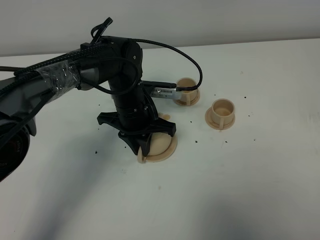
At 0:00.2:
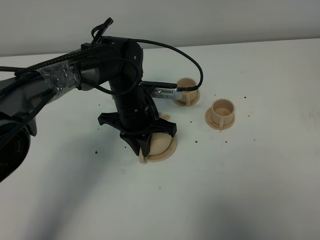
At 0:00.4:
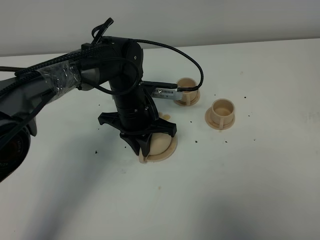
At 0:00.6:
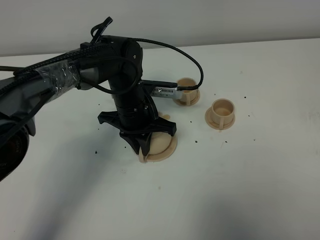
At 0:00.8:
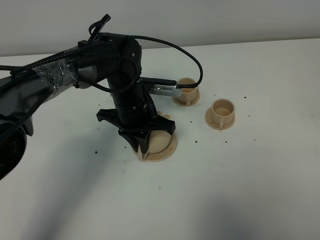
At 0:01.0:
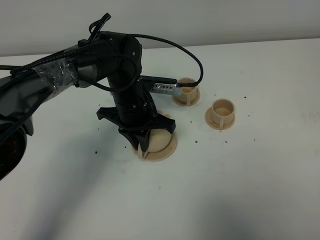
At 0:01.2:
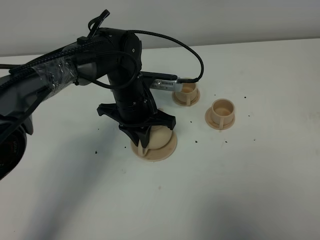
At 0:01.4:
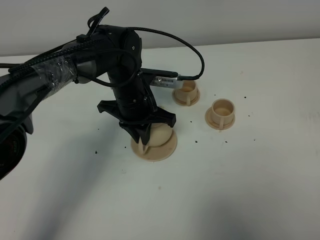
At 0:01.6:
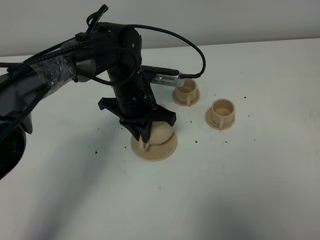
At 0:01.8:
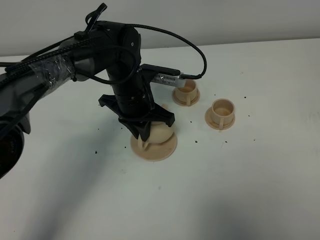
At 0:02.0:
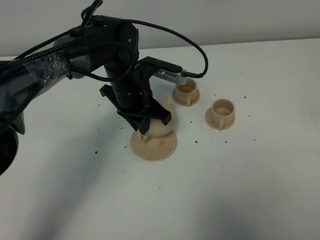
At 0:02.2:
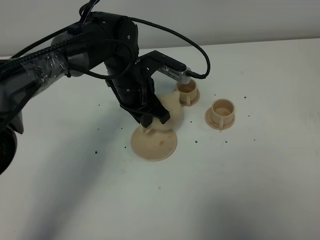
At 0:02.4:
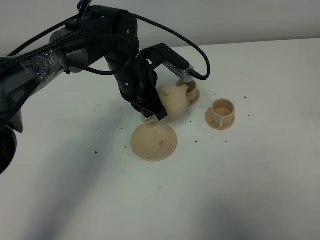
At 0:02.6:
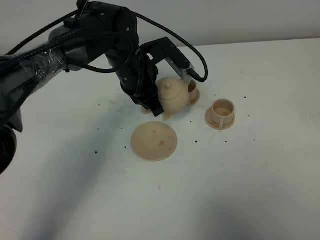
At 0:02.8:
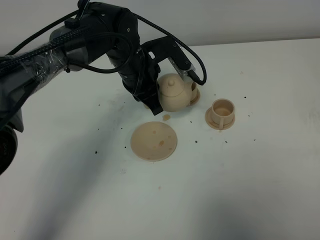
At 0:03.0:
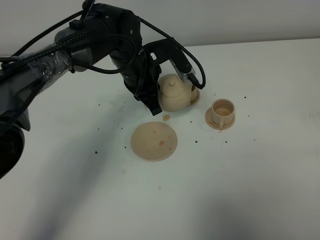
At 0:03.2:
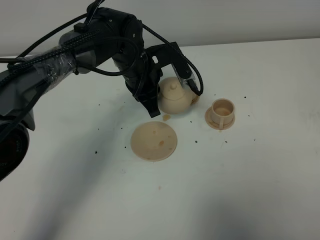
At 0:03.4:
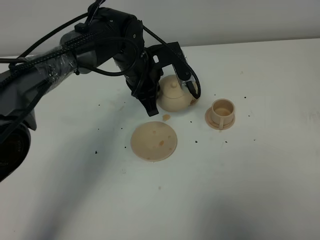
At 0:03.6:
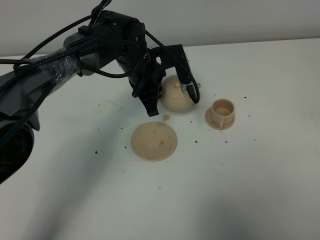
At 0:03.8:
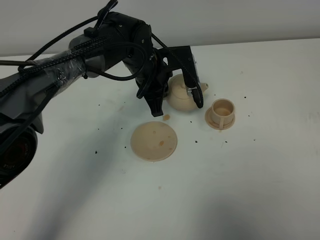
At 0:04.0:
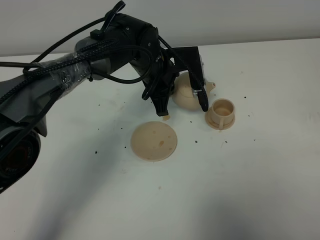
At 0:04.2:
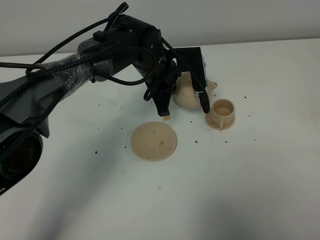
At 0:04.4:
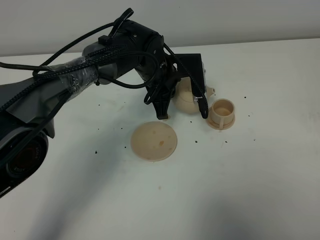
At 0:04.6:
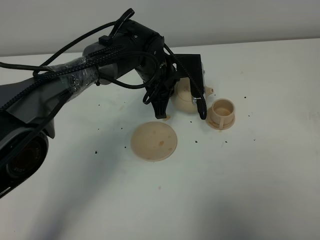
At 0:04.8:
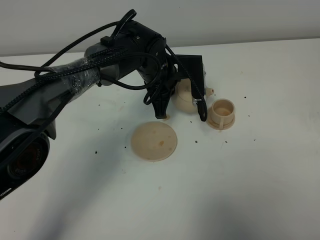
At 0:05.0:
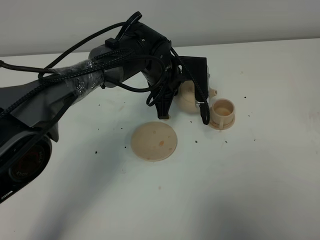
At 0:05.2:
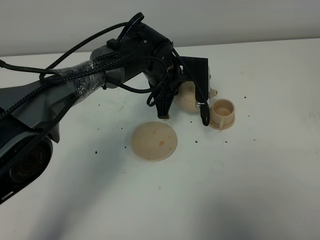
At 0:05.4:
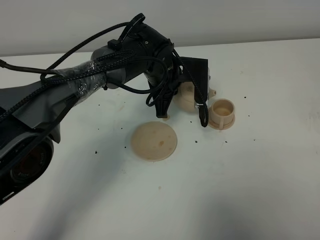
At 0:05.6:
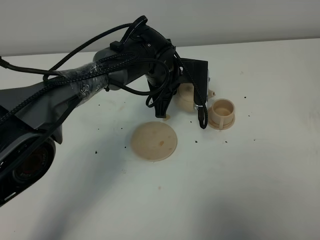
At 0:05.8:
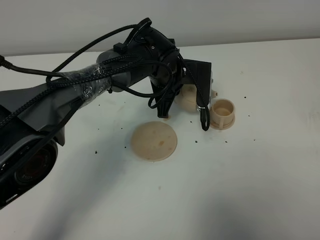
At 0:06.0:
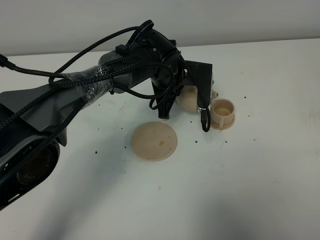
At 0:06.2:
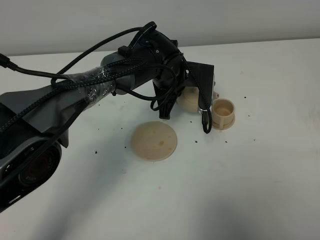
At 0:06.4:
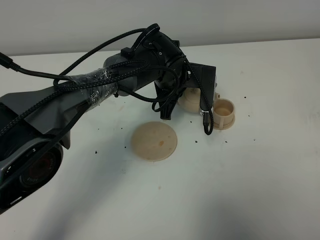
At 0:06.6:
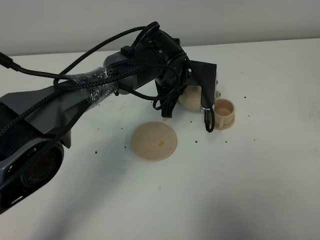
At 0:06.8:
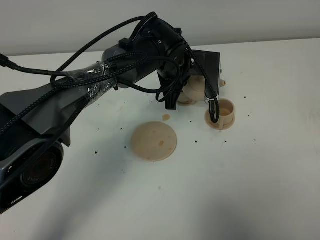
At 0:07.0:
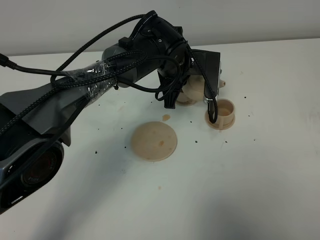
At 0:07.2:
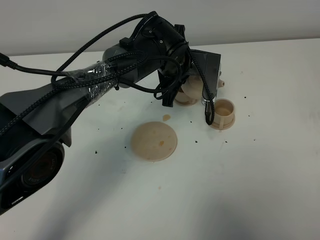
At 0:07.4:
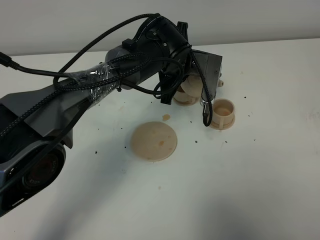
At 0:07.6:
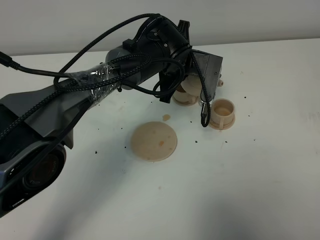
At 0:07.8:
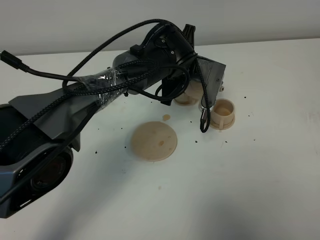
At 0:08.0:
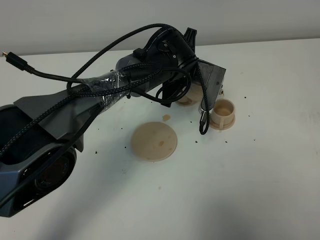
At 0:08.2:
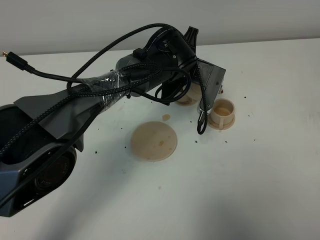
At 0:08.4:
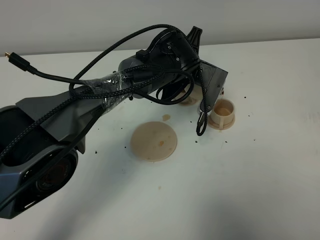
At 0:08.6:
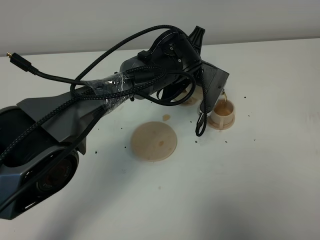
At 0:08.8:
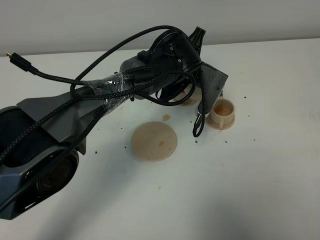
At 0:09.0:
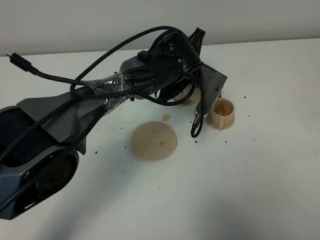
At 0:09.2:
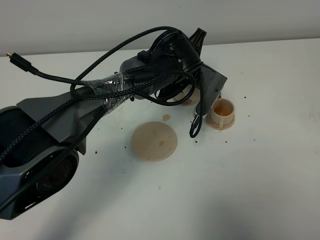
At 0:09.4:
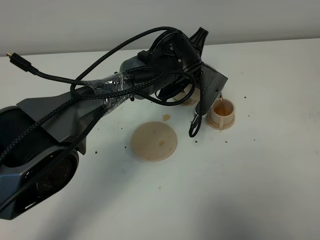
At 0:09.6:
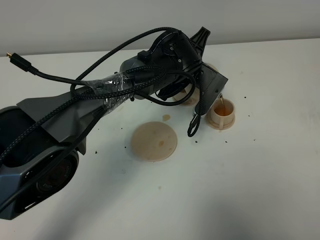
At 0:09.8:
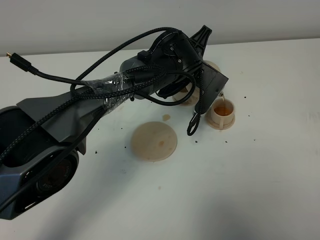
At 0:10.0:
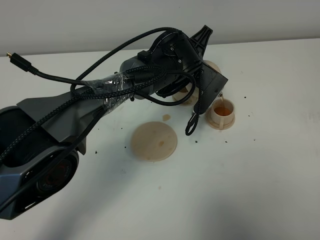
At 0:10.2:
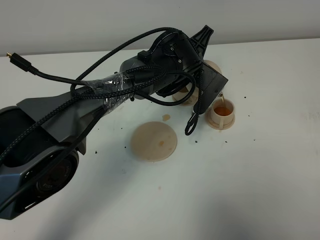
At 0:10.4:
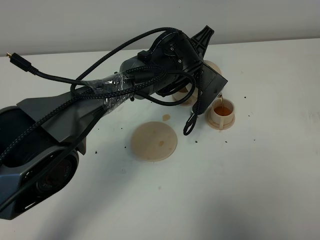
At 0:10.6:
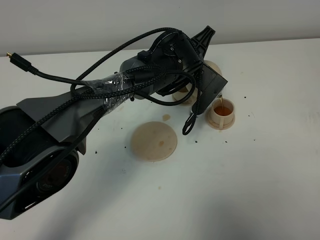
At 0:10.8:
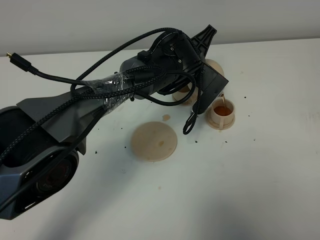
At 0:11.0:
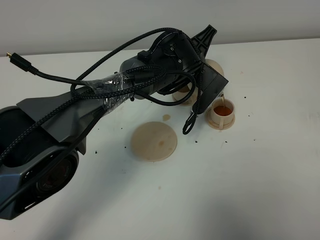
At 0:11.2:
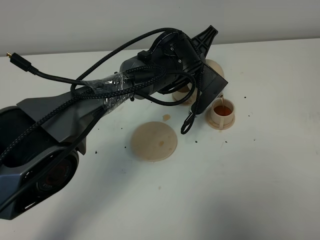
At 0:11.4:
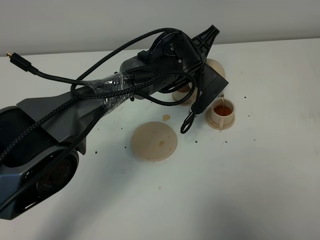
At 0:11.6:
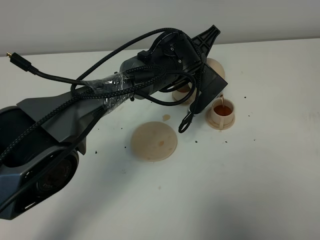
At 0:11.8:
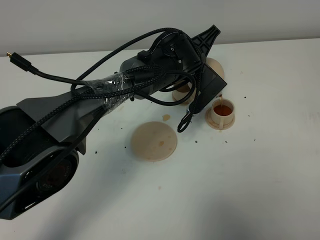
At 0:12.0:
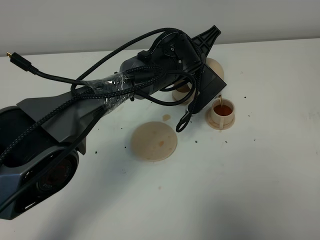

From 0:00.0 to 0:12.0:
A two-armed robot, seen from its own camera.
Task of the whole recording: grasp the brown teapot and pour the tea into the two brown teacups one by one, put the brown teapot back in its original place.
From 0:00.0 to 0:01.6: The grippers make only small movements.
From 0:04.4 to 0:06.0: The grippers make only small movements.
From 0:06.0 to 0:07.6: There are only small adjustments of the grippers.
From 0:07.6 to 0:09.0: There are only small adjustments of the grippers.
From 0:09.0 to 0:12.0: The grippers make only small movements.

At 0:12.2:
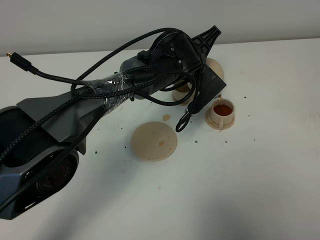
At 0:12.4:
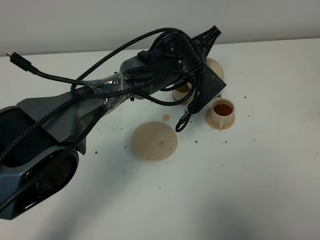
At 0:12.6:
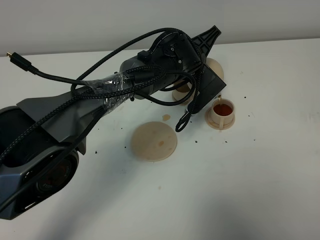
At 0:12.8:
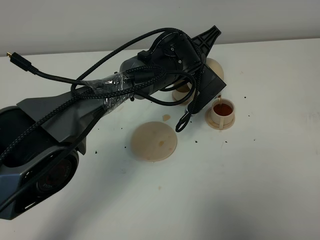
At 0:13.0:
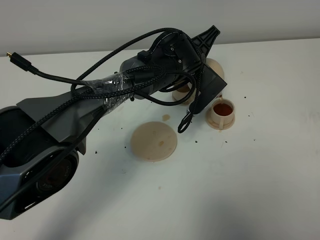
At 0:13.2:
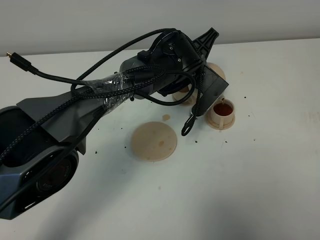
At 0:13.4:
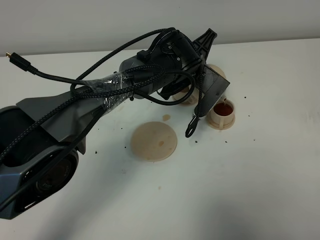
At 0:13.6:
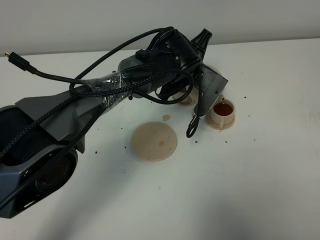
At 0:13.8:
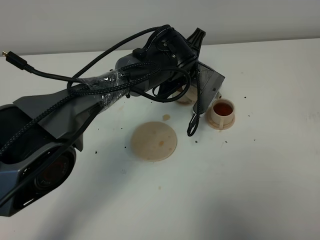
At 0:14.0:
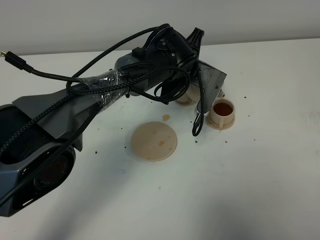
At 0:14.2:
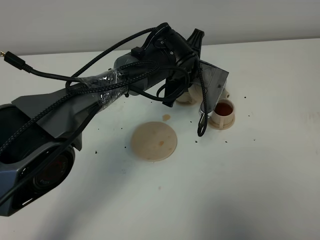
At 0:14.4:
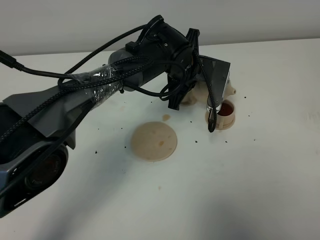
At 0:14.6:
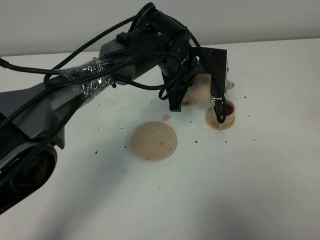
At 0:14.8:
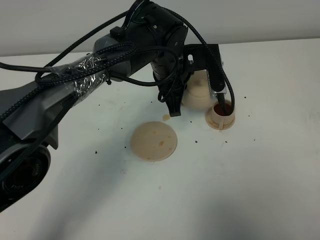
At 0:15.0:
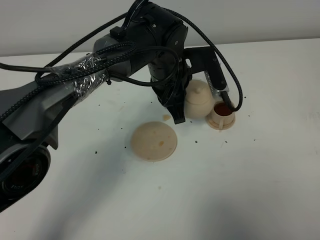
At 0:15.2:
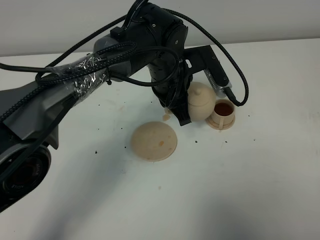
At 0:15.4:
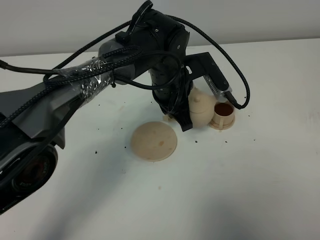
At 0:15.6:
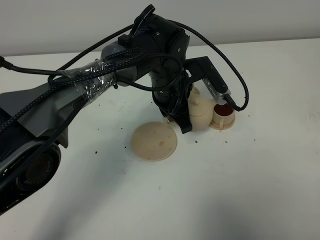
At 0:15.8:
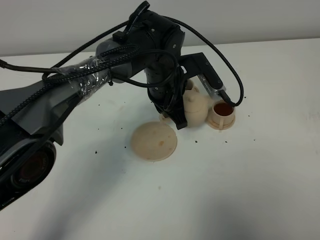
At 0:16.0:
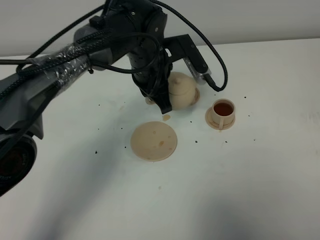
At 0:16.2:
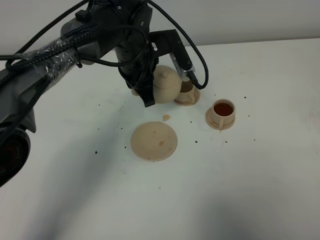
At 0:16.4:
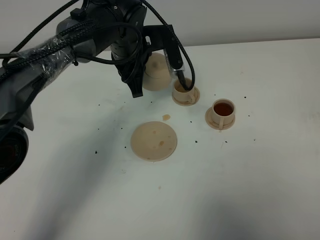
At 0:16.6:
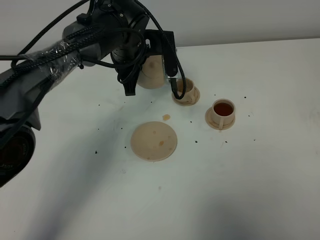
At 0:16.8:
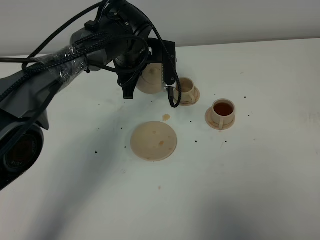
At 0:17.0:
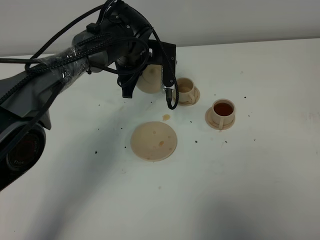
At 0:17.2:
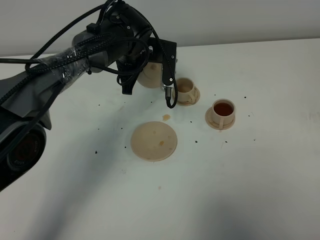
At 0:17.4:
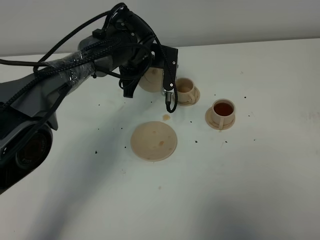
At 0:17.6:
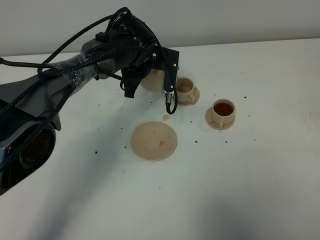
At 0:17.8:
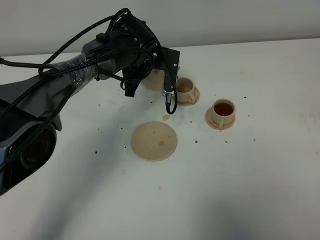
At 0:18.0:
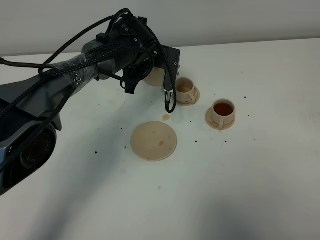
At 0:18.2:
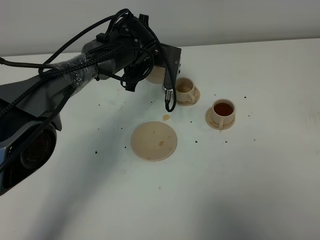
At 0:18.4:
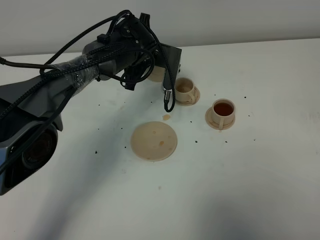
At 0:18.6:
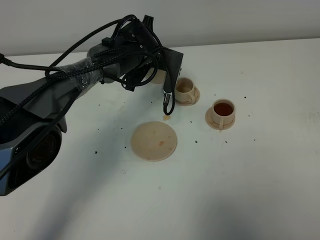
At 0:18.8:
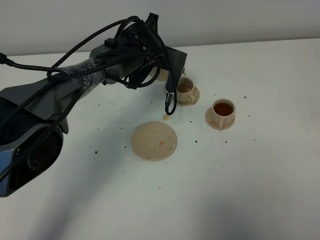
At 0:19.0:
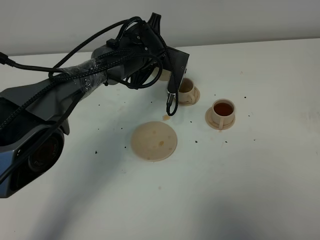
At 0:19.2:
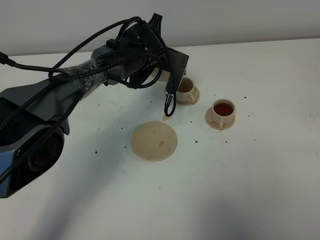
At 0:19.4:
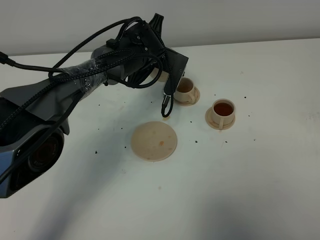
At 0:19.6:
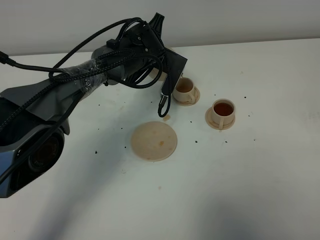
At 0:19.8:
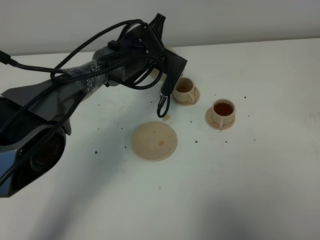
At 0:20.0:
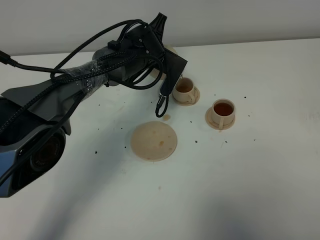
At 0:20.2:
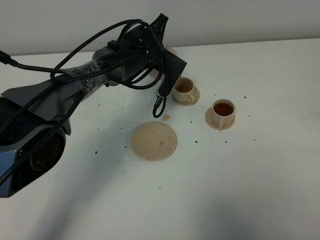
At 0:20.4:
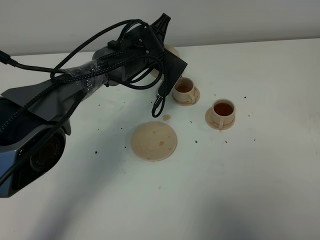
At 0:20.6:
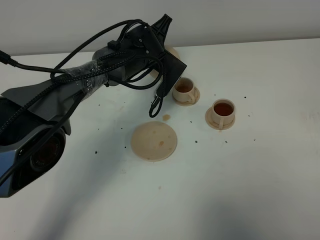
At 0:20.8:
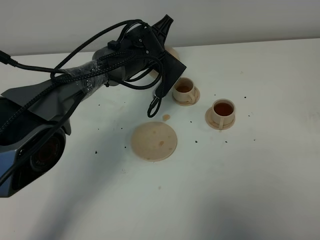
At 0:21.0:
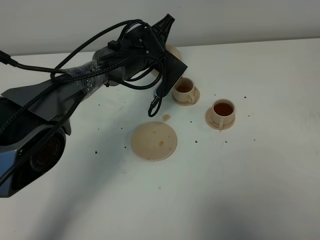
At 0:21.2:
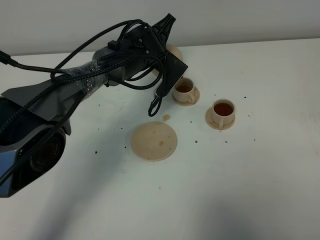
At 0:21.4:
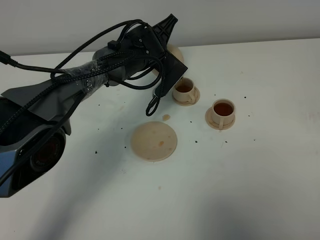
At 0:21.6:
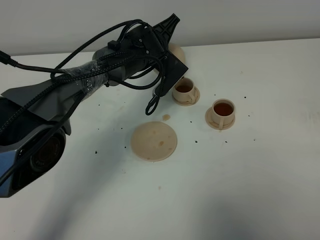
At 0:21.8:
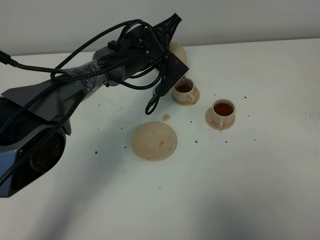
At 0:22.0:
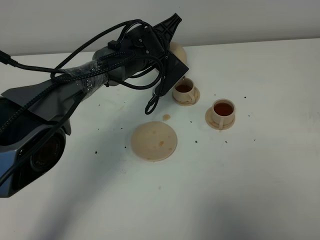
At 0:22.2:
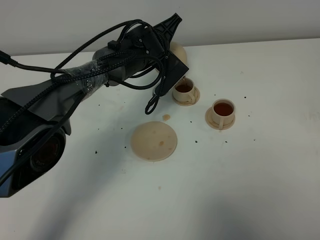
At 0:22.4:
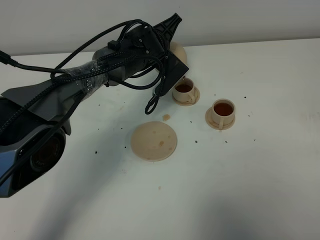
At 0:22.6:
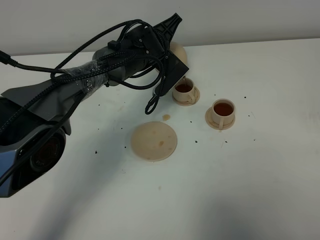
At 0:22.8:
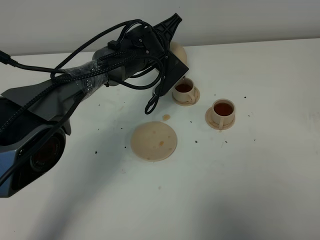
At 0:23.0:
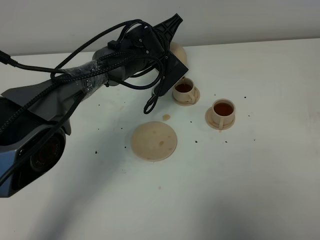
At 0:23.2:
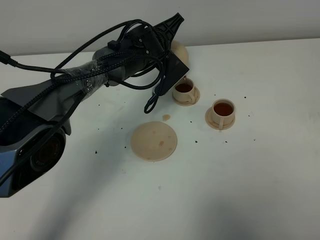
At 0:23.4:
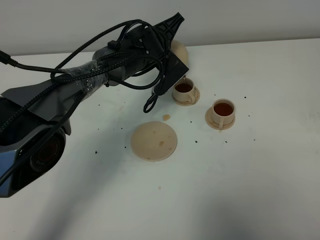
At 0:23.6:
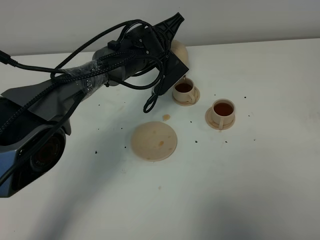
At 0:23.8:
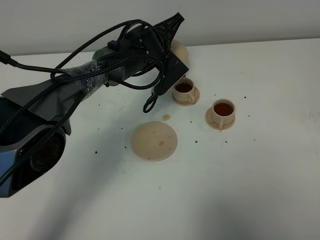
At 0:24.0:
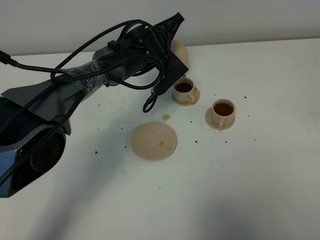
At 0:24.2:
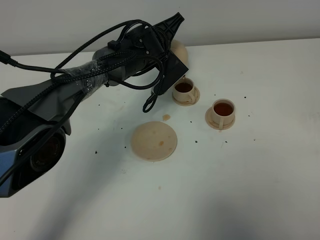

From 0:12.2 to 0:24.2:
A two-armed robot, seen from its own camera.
Task of the whole recording: grasp the brown teapot and pour the tea into the two brown teacups one by one, put the brown teapot back in its original place.
From 0:12.2 to 0:13.8: The grippers stay close to where they were, moving slightly.
From 0:13.8 to 0:15.2: The left gripper moves approximately 5 cm.
From 0:15.2 to 0:16.6: The left gripper heads to the left and forward, covering roughly 10 cm.
From 0:16.6 to 0:18.2: The grippers move only a little.
From 0:18.2 to 0:19.8: The grippers make only small movements.
From 0:19.8 to 0:22.6: The grippers move only a little.
From 0:22.6 to 0:24.2: The two grippers keep their place.
